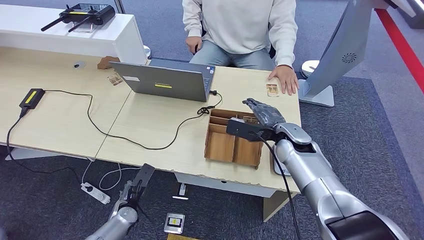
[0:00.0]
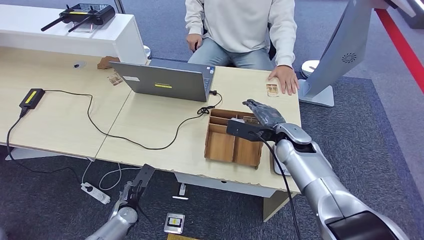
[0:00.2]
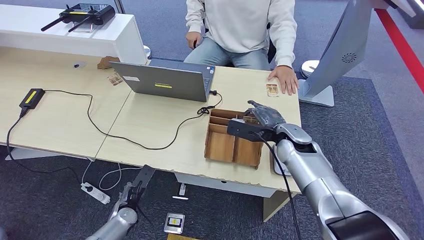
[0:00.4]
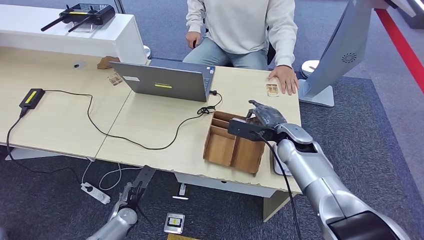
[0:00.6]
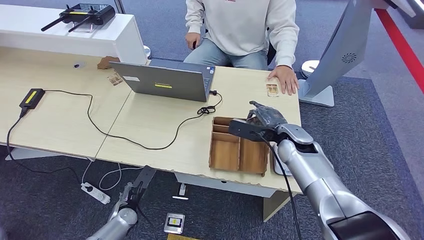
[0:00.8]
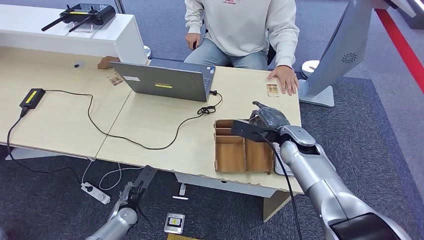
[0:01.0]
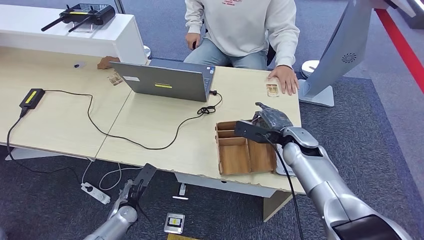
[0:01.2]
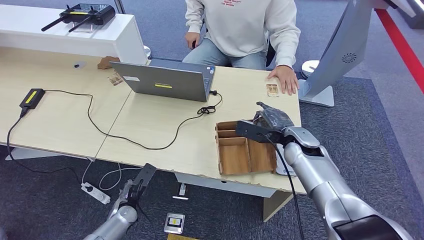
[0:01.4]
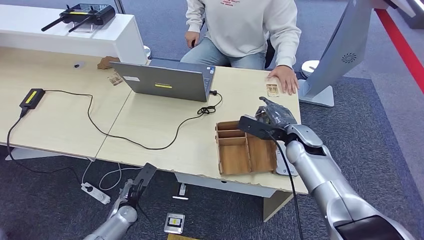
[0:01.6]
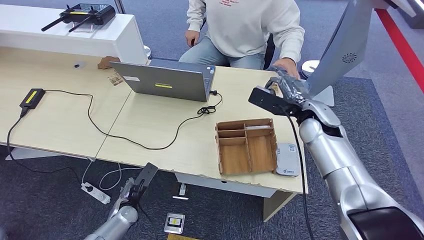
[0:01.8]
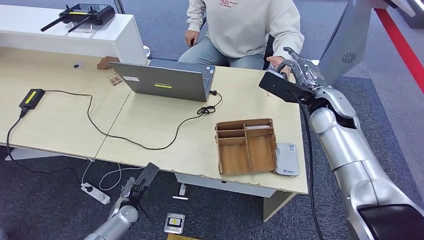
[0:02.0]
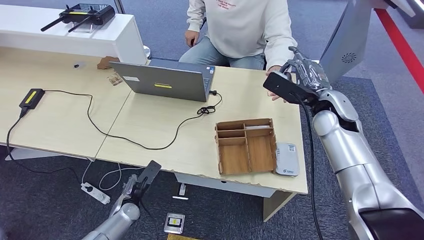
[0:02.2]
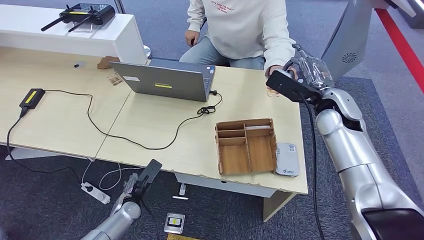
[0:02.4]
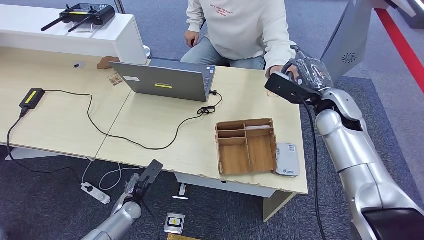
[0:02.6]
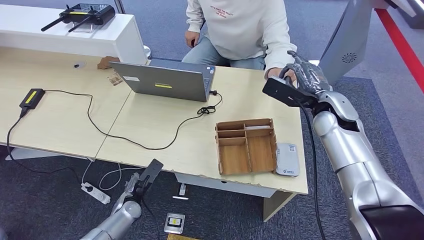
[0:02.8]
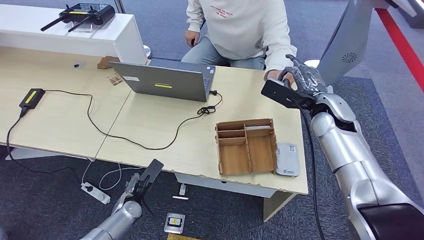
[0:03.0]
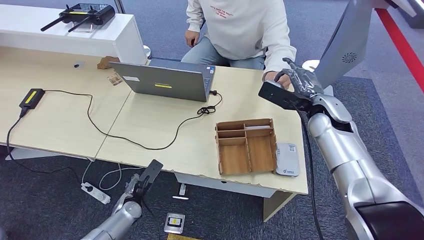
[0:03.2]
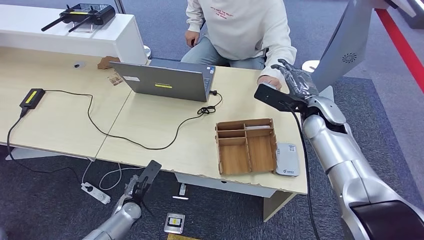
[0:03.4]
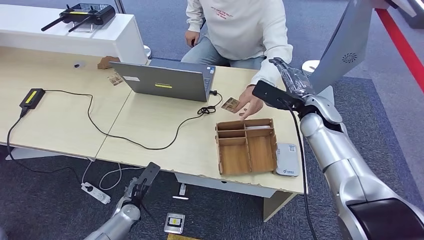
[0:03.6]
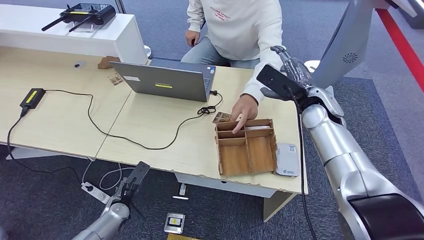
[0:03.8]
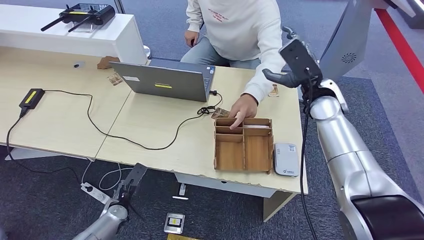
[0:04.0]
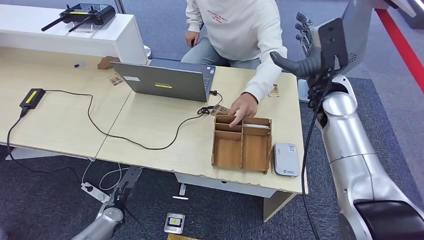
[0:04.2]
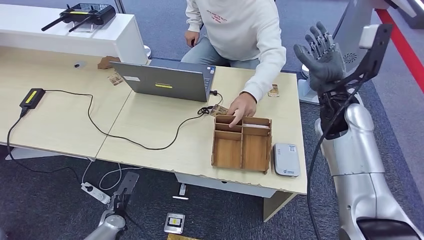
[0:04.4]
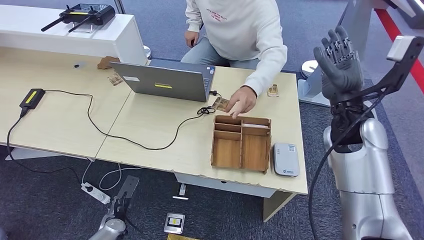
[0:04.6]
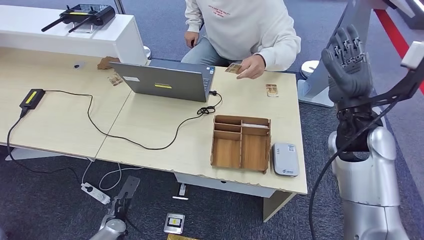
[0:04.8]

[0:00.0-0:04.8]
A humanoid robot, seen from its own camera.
Step, 0:00.0 to 0:02.0: Pick up the room key from the key card box.
Step, 0:02.2 to 0:04.8: Hand the room key to the person.
0:00.0 to 0:01.6: There are only small adjustments of the hands.
0:01.6 to 0:03.2: The right hand shifts about 10 cm upward.
